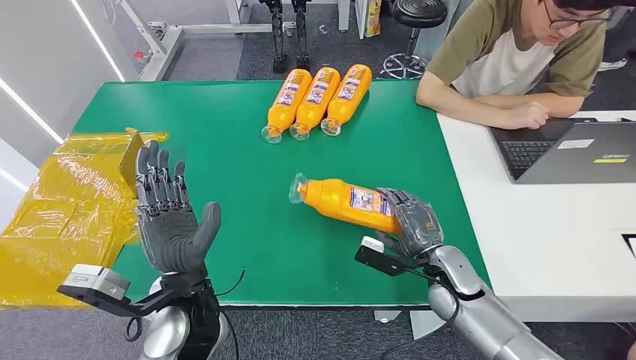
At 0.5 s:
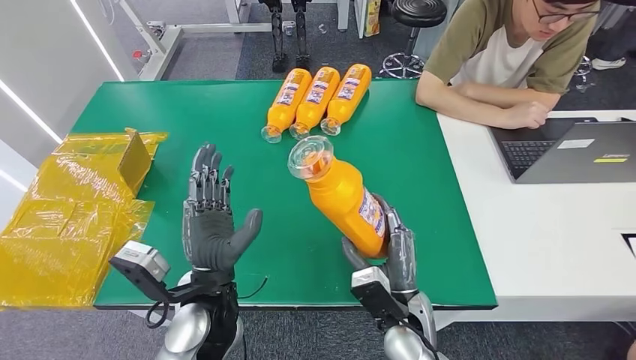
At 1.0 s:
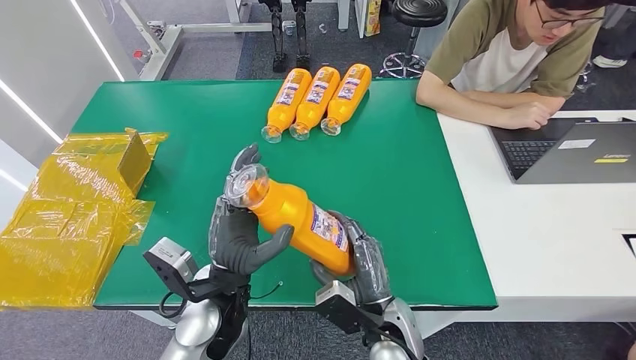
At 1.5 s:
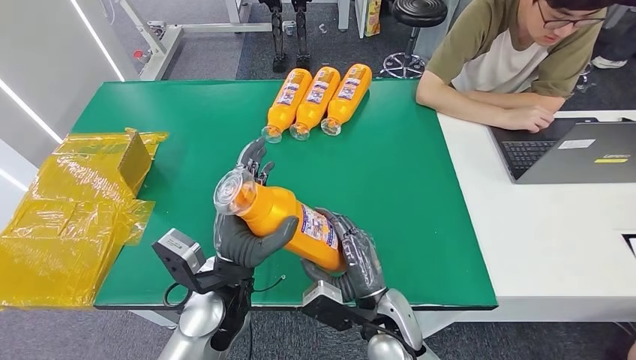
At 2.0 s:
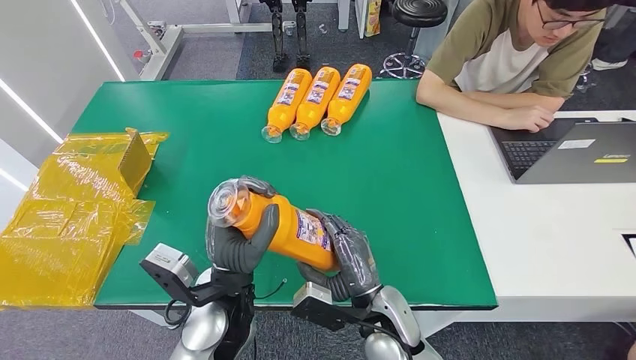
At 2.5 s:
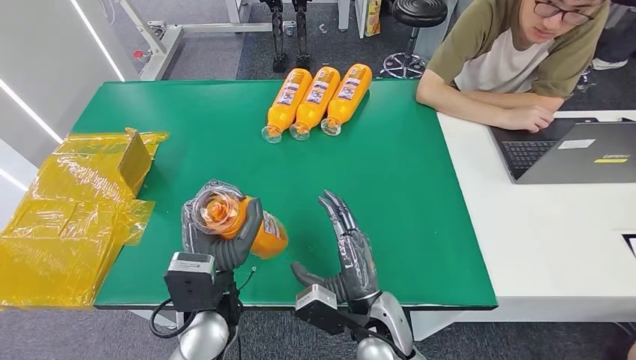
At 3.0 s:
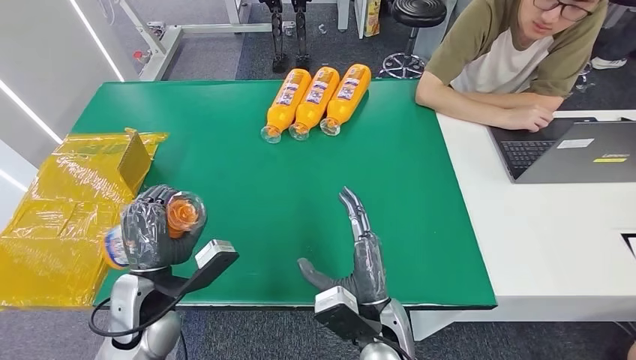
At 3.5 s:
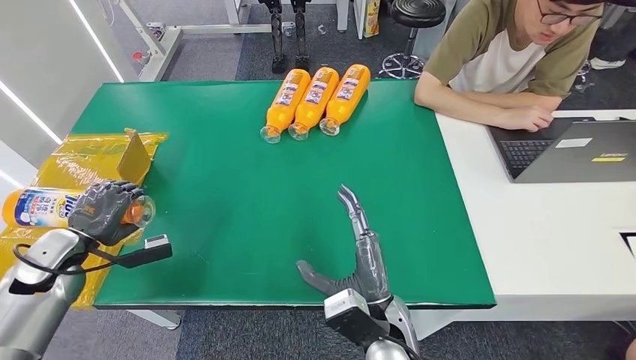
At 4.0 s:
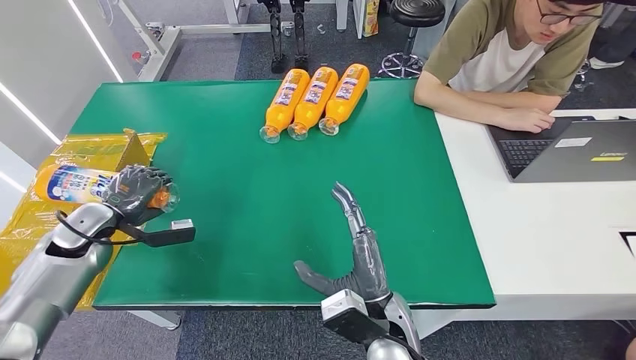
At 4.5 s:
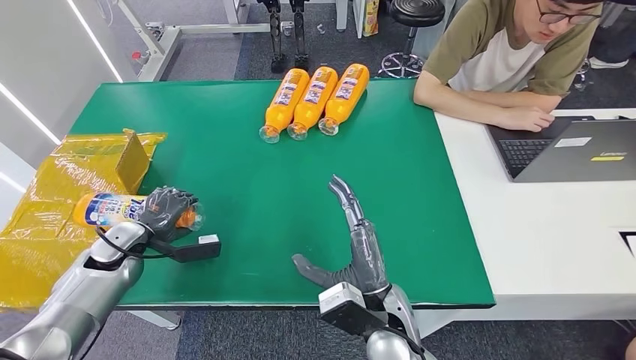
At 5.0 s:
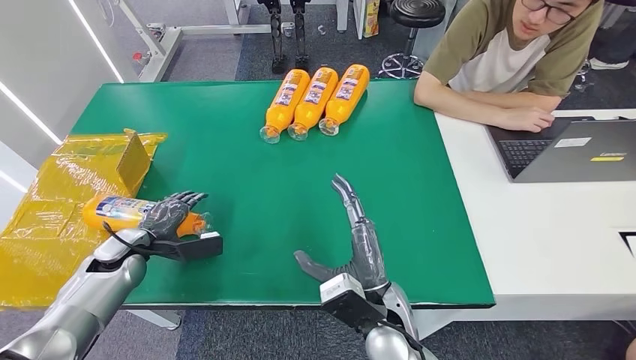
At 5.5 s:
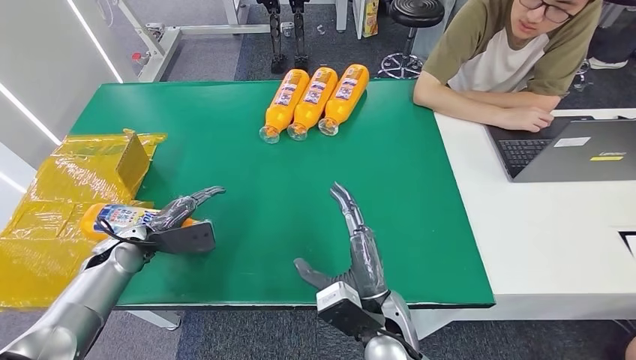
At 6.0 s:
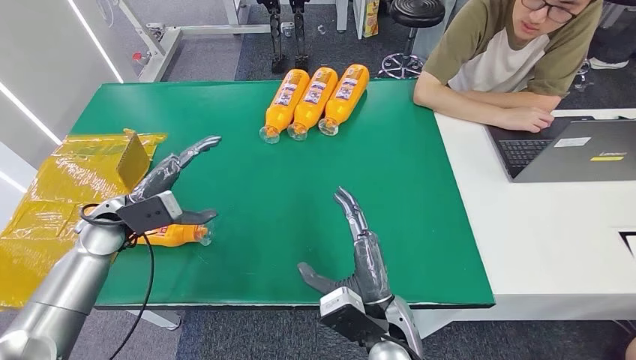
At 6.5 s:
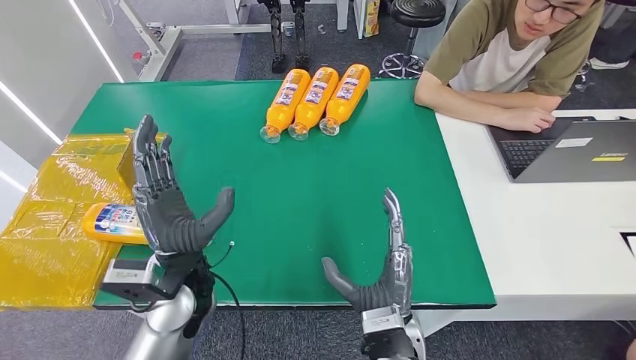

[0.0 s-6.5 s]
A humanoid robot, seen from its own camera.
Step, 0.0 to 1.5 s: Pick up the bottle from the table.
Step, 2.0 to 6.5 s: Turn the bottle to the front side.
4.5 to 6.5 s: The left hand moves to the right, some 25 cm.

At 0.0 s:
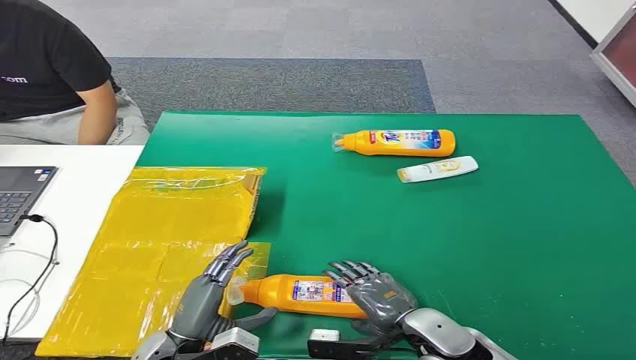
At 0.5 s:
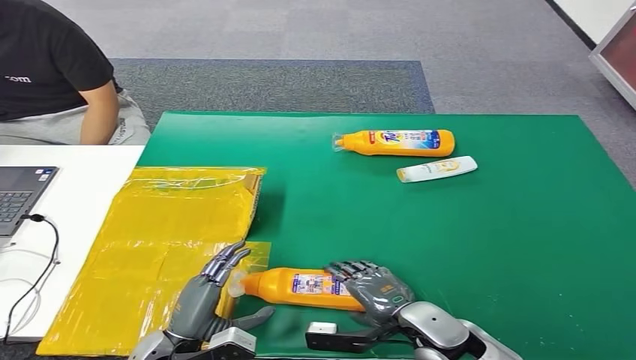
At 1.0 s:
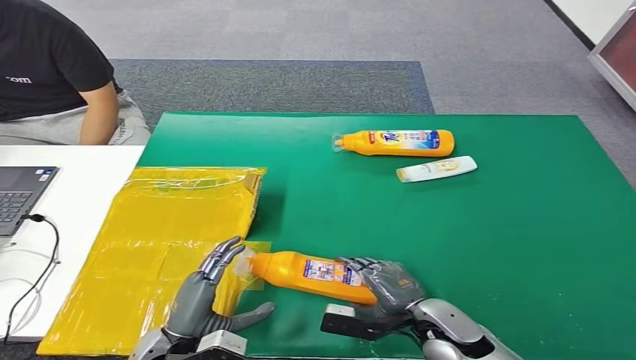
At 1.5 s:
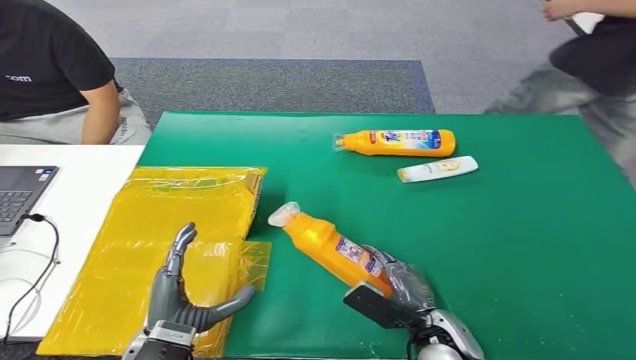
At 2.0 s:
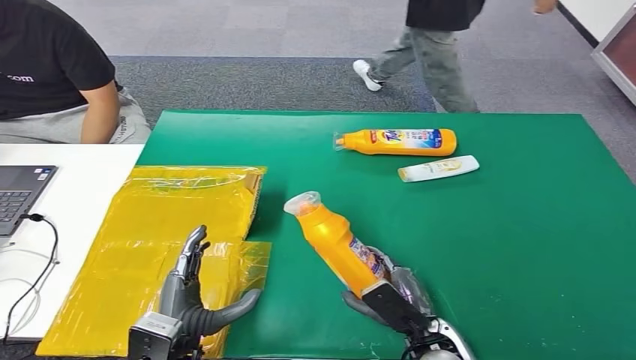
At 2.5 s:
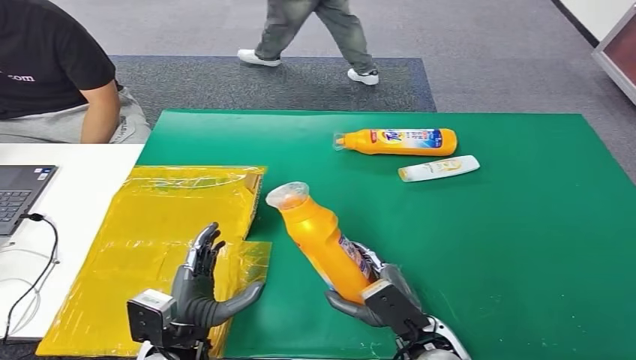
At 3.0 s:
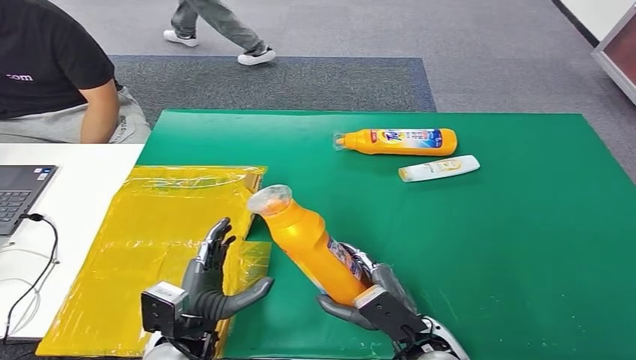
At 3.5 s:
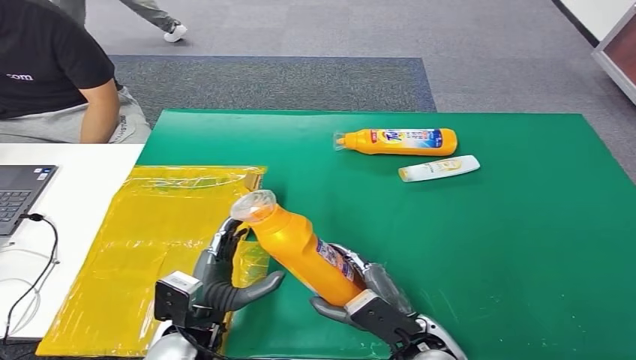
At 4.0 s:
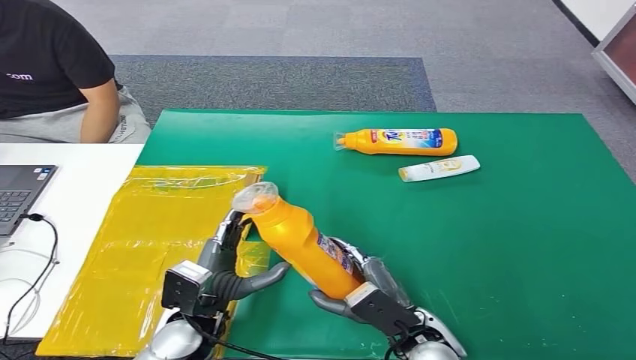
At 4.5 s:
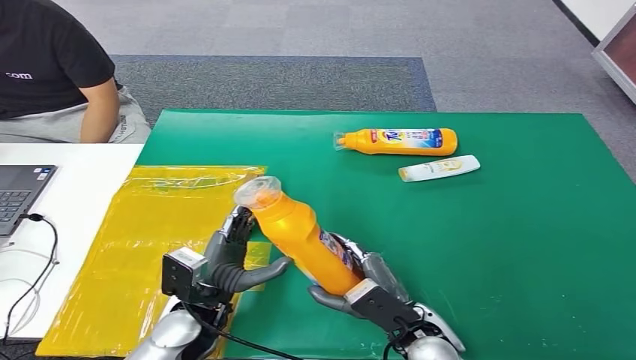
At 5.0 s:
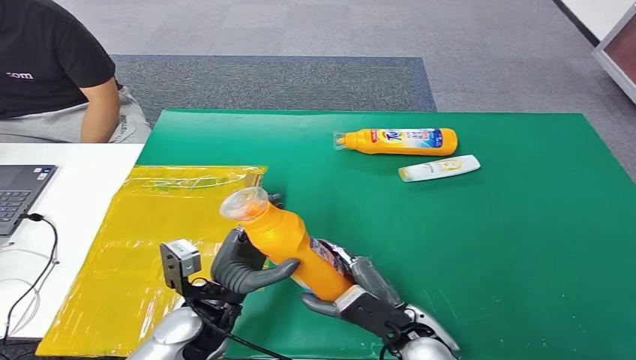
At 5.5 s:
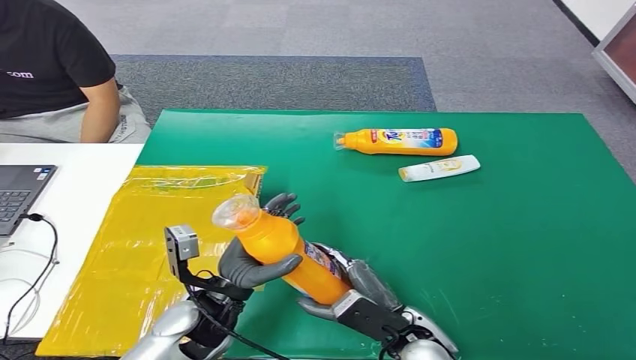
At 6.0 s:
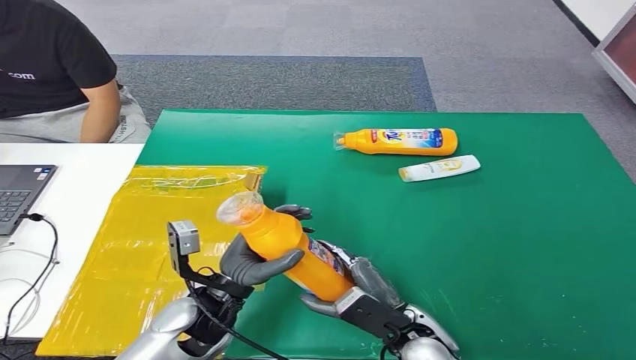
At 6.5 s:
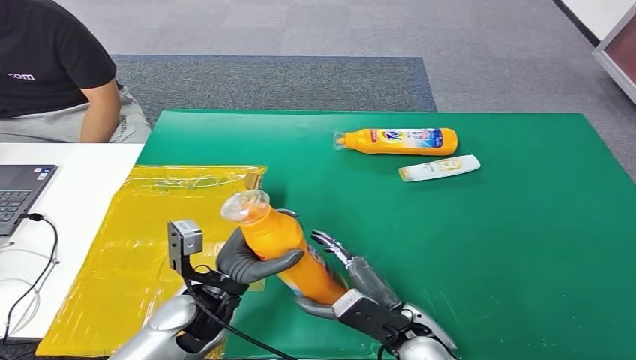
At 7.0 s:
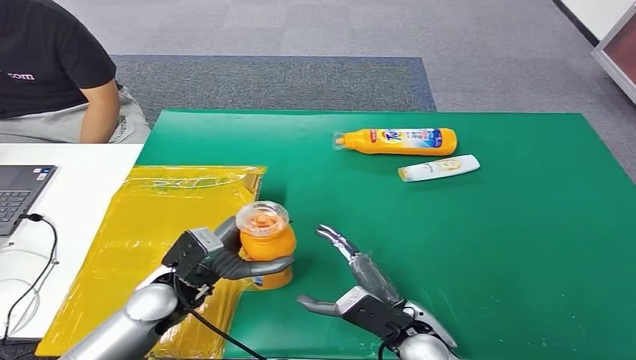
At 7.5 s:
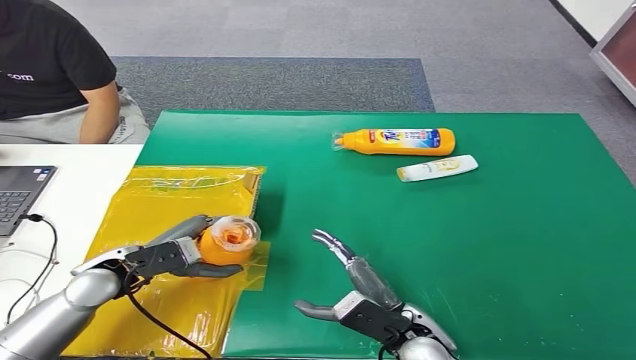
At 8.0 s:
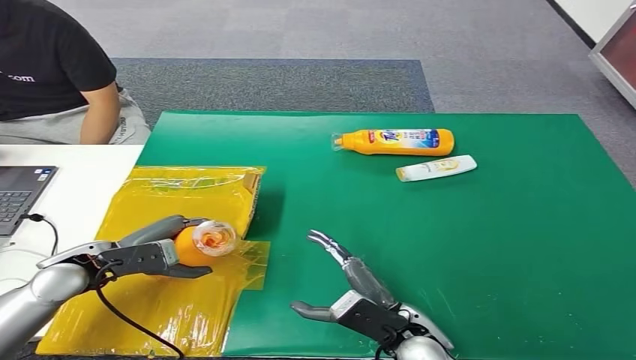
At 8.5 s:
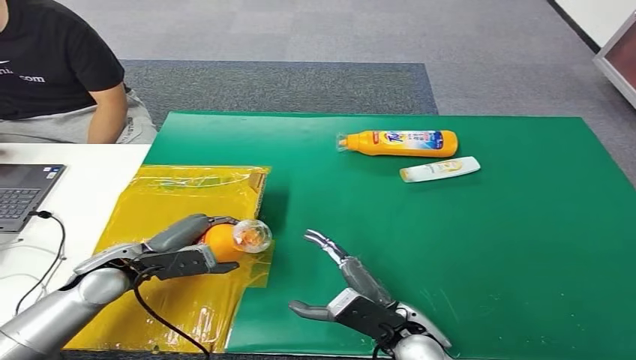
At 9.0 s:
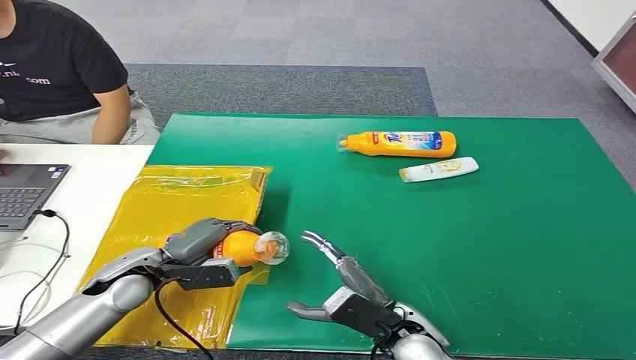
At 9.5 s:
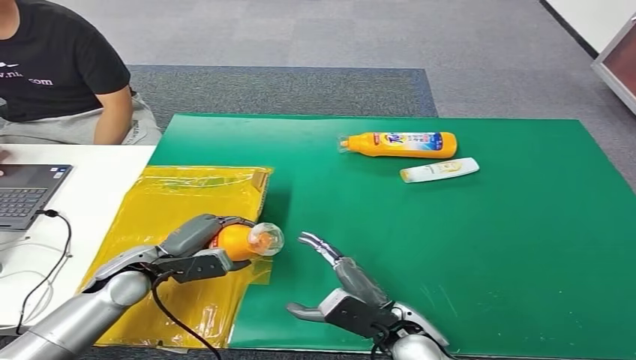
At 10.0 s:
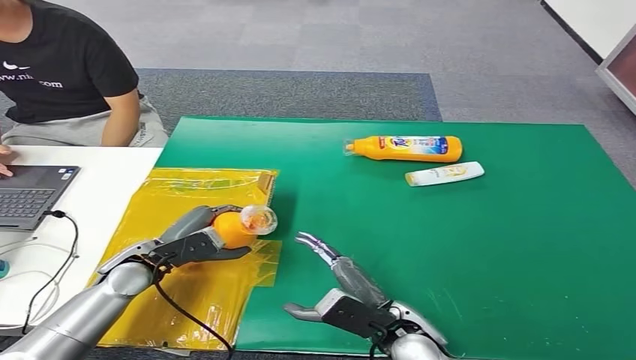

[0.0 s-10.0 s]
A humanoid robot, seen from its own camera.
Step, 0.0 to 2.5 s: Pick up the bottle from the table.
2.0 to 4.0 s: The left hand is displaced forward by some 5 cm.
6.0 to 8.0 s: The left hand heads to the left, covering approximately 20 cm.

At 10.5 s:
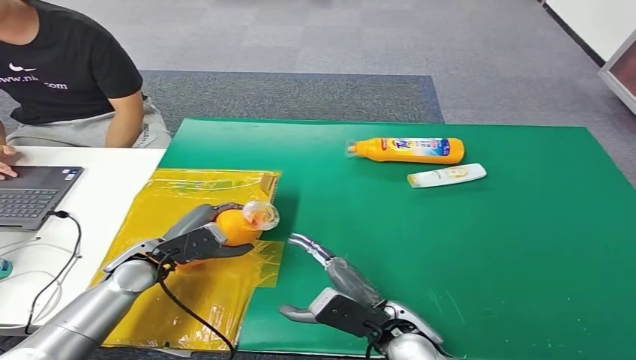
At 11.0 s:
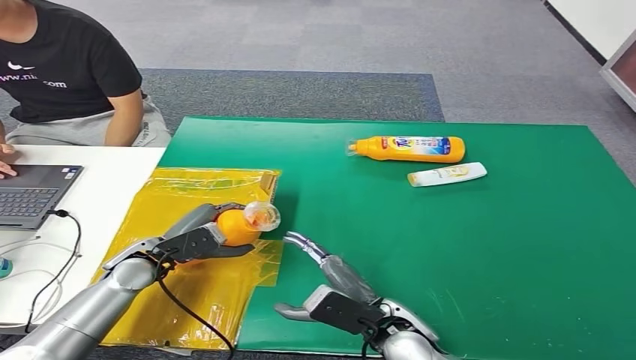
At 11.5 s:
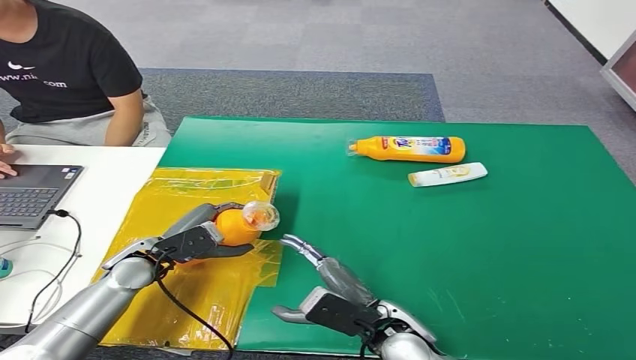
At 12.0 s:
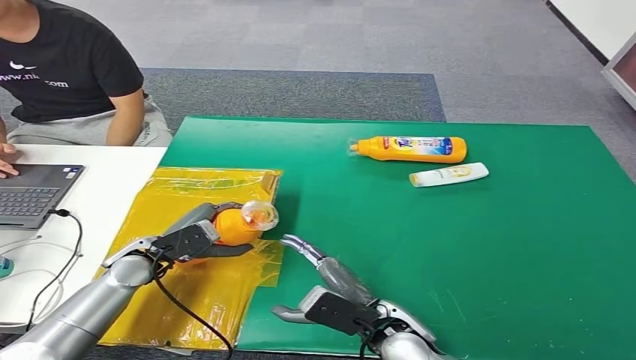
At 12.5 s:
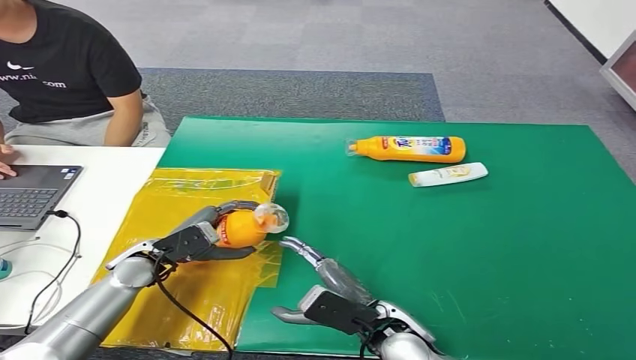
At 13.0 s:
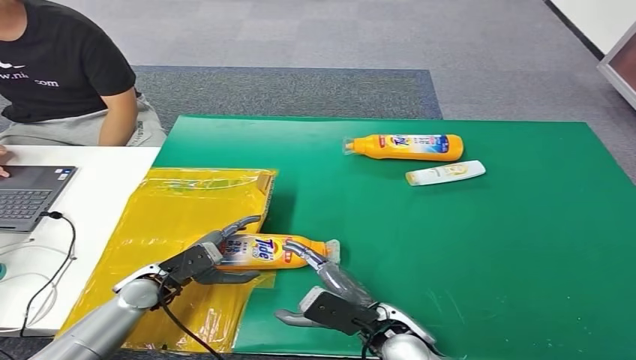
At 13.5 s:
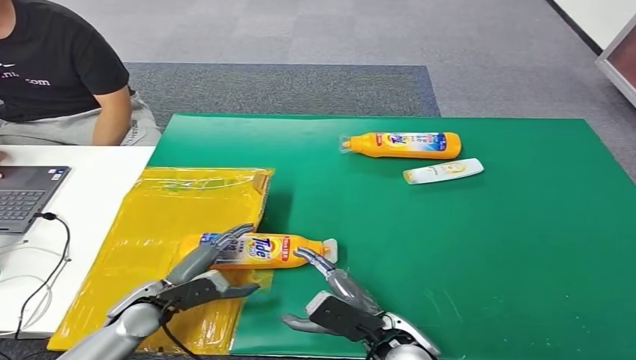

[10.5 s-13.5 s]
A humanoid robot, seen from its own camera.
Step, 10.5 to 13.5 s: Turn the bottle to the front side.
10.5 to 12.0 s: There are only small adjustments of the hands.
